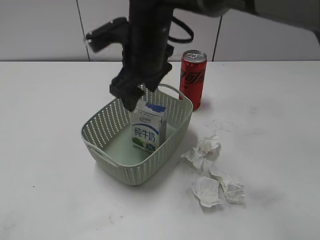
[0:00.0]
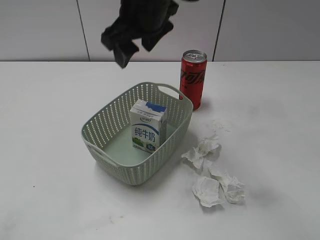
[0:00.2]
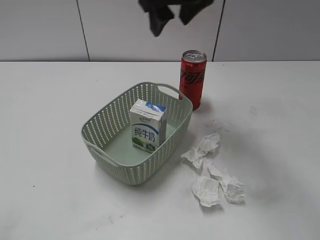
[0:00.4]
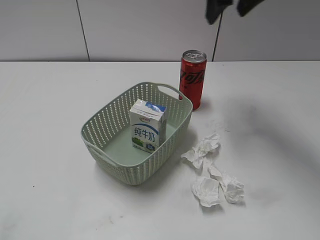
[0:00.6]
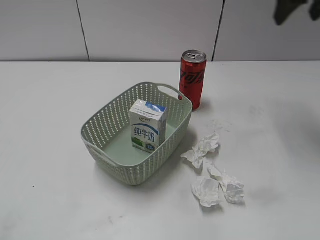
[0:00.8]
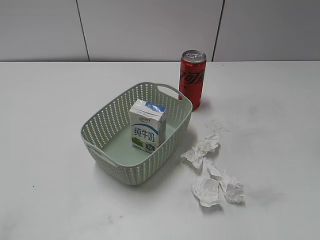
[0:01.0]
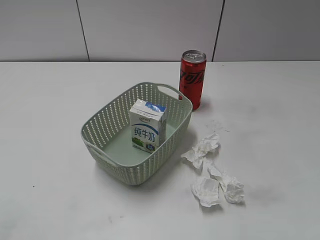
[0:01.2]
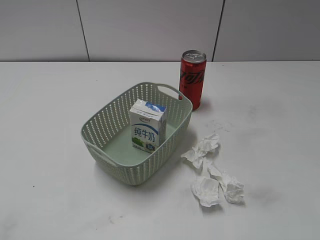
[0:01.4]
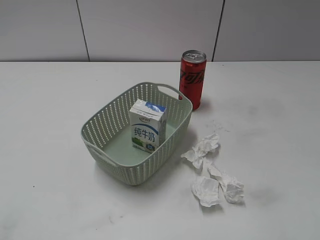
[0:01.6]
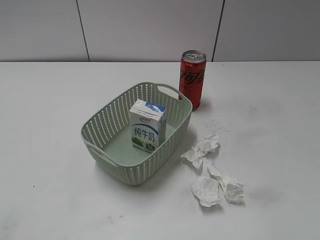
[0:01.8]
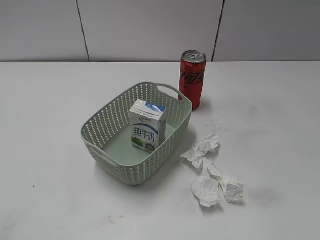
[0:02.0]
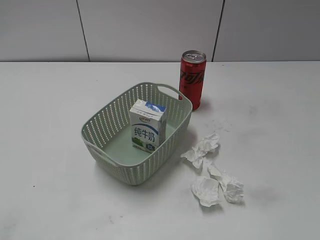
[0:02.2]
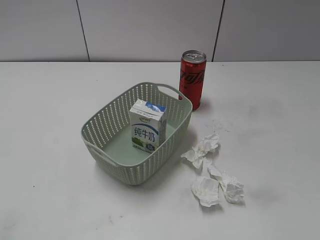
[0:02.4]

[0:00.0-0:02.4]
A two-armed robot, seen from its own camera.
0:00.0 to 0:01.2: The right gripper heads to the right, covering roughly 35 cm.

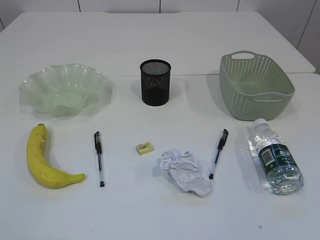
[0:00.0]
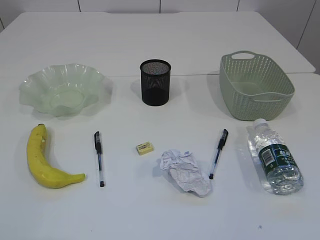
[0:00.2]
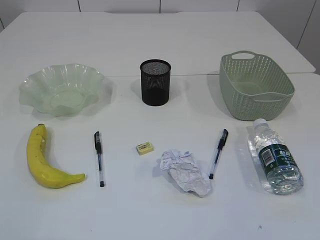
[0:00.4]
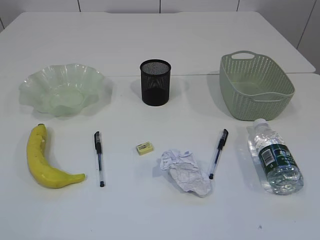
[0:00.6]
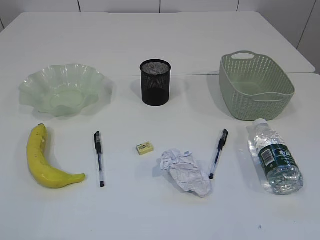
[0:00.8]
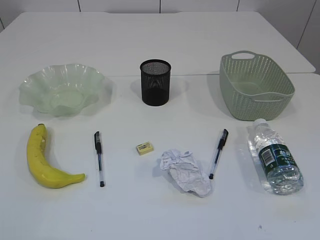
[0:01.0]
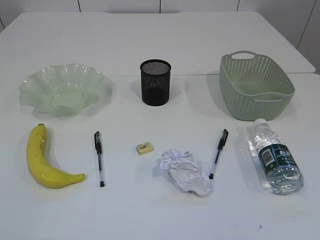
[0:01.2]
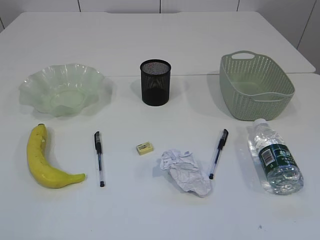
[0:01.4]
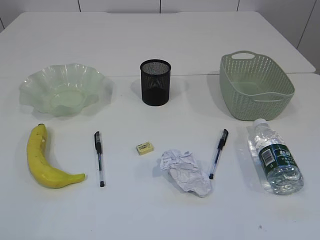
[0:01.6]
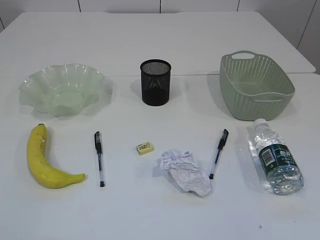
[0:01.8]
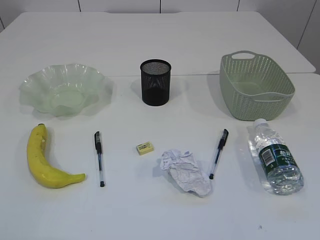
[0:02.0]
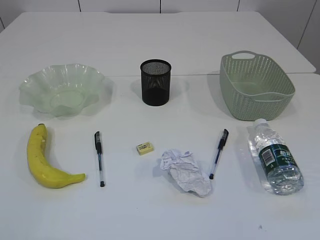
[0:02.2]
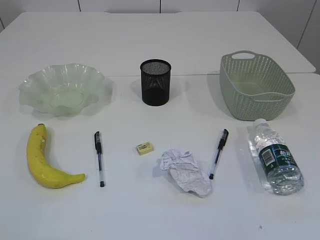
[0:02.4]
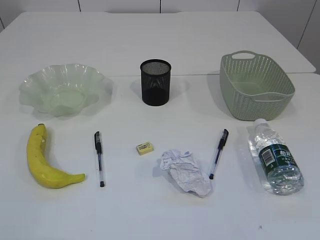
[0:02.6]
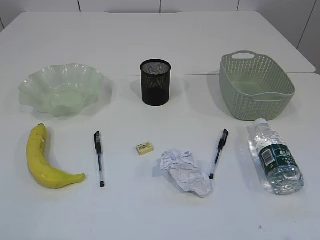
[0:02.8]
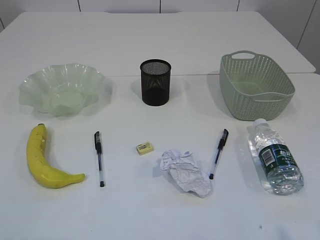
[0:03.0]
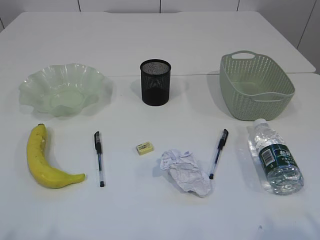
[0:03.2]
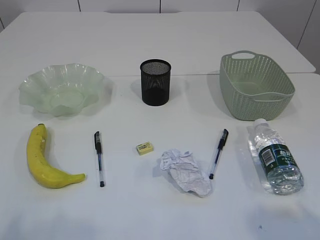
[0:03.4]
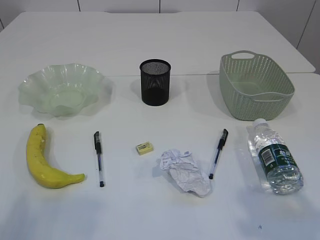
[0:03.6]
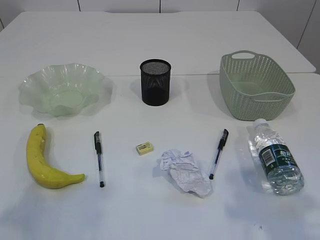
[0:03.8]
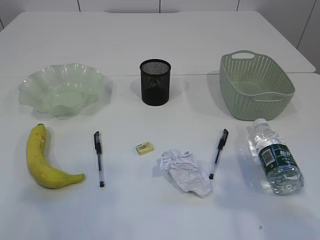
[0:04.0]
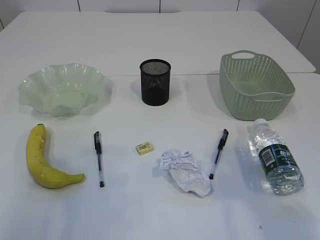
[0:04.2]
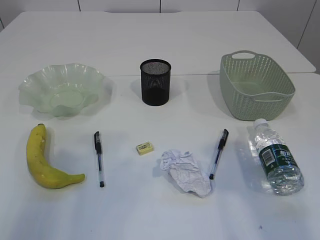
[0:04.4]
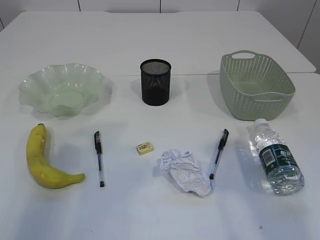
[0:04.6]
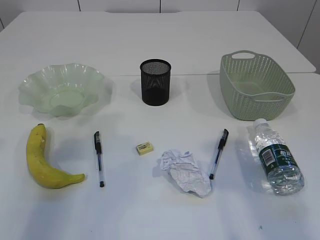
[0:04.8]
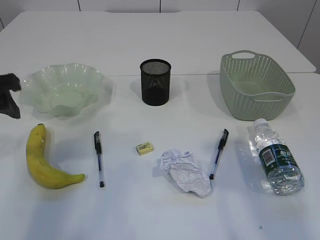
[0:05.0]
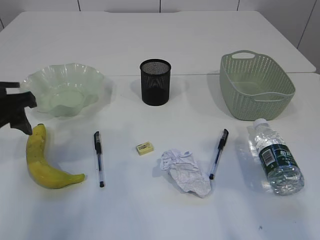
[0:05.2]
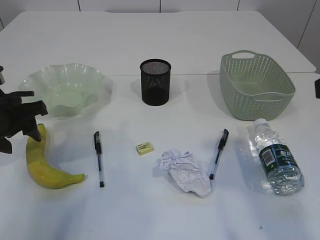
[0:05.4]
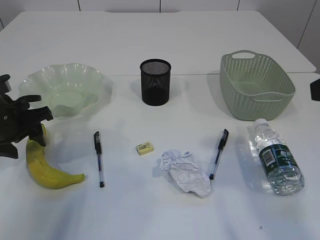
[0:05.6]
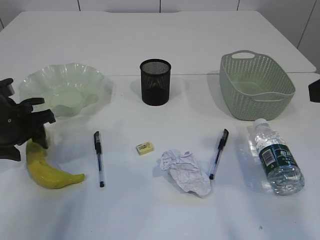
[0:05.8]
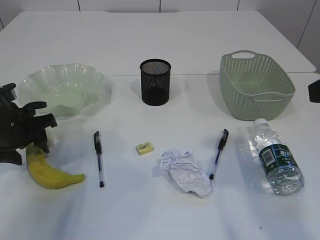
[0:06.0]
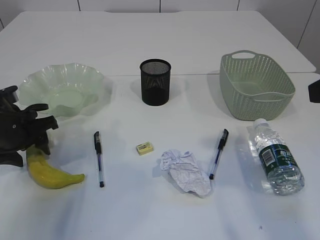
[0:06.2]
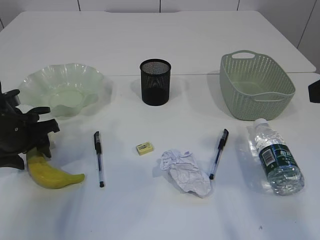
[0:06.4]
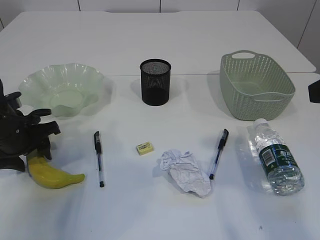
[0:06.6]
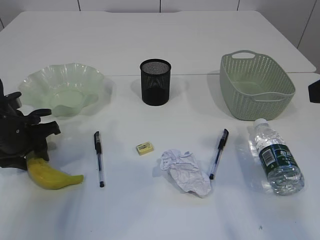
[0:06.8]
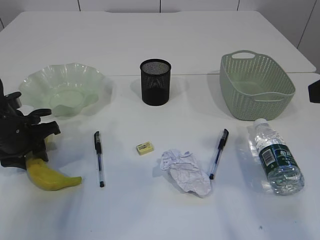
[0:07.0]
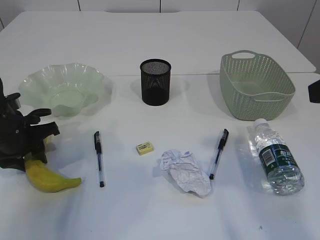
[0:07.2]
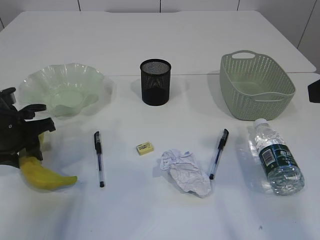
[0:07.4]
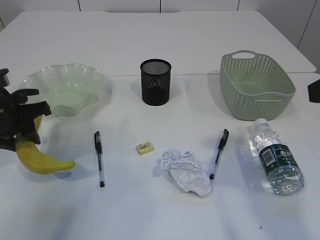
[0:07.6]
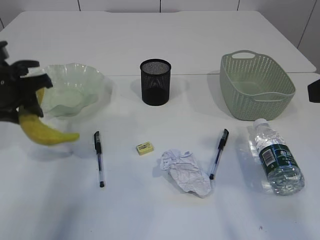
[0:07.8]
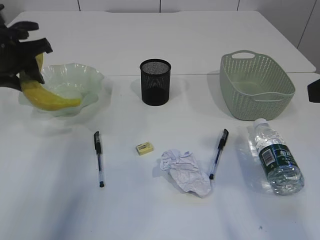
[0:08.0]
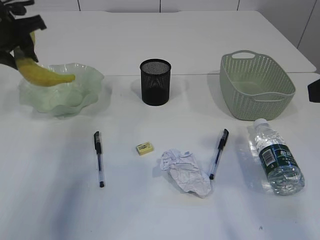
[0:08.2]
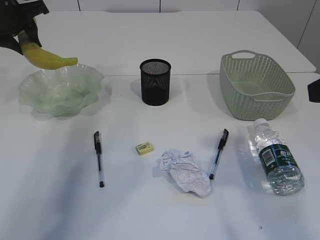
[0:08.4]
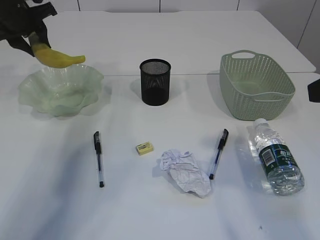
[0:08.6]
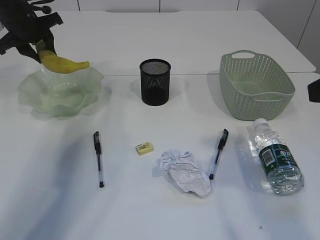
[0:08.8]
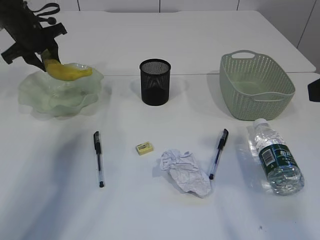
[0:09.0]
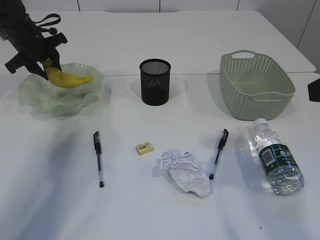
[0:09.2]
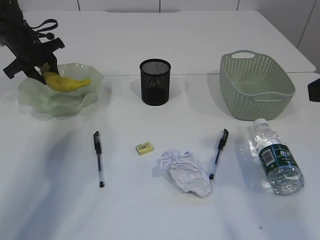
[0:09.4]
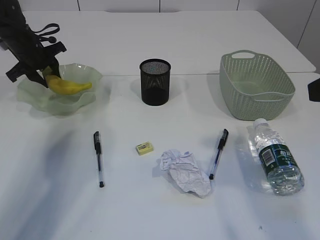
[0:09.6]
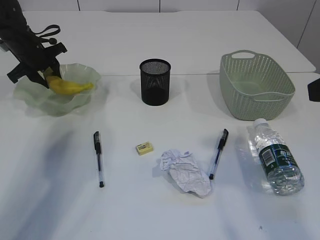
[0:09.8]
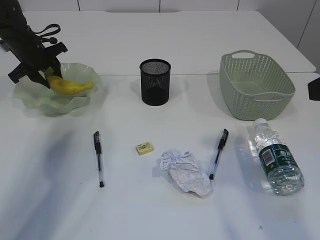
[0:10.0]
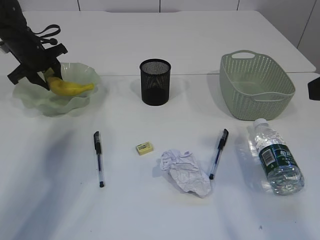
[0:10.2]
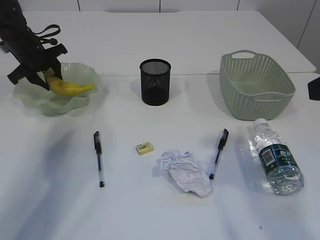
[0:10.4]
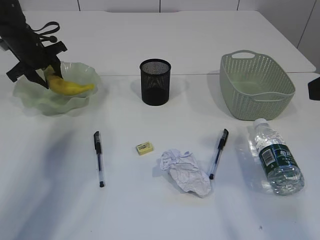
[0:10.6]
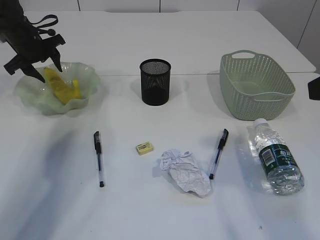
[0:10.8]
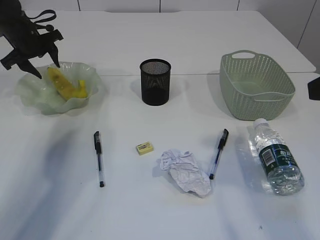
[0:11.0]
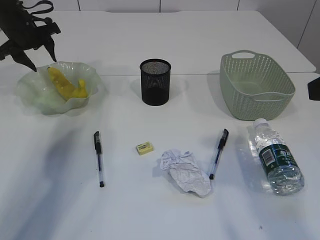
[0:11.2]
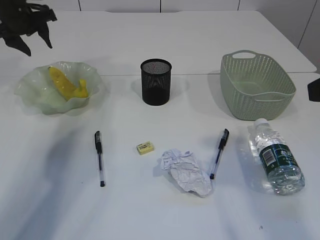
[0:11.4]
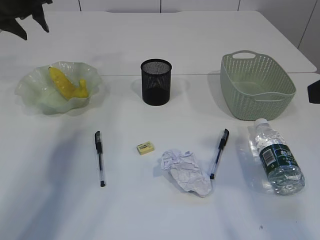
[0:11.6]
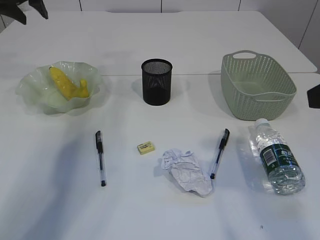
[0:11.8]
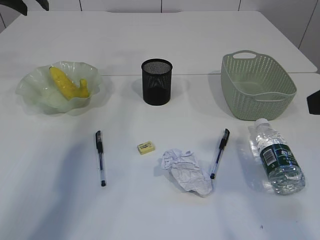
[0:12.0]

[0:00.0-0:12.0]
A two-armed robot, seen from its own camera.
Step, 0:07.8 to 0:11.4: Place the banana in the plate.
0:03.0 to 0:04.4: The grippers both shift forward by some 15 cm. The left gripper opens.
0:04.4 to 0:06.0: The left gripper is displaced downward and forward by approximately 25 cm.
0:06.0 to 0:07.6: The left gripper closes its fingers.
0:07.6 to 0:09.0: The left gripper goes some 20 cm forward.
0:09.0 to 0:10.4: The left gripper shifts some 5 cm downward.
0:10.4 to 0:12.0: The left gripper travels upward by some 20 cm.

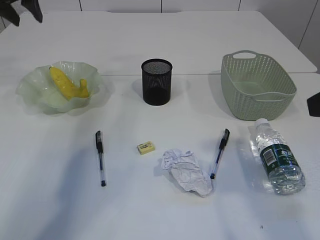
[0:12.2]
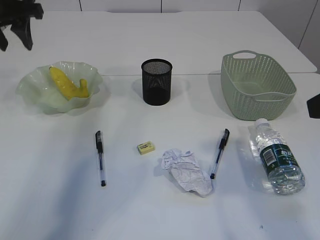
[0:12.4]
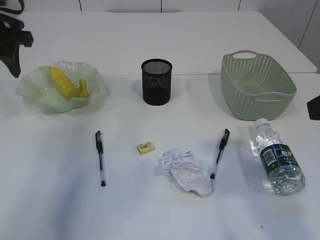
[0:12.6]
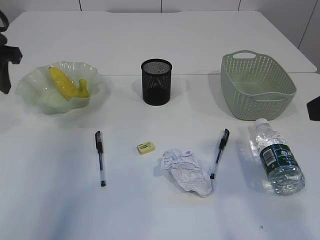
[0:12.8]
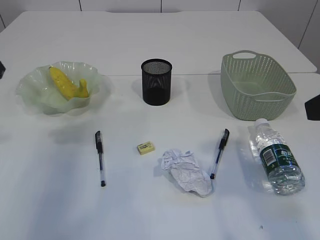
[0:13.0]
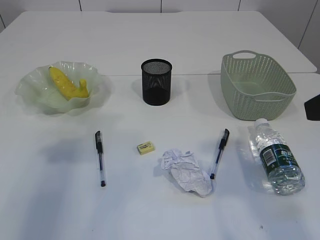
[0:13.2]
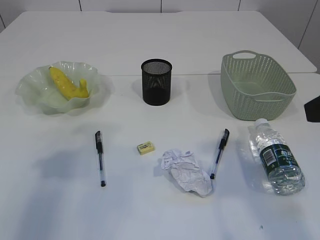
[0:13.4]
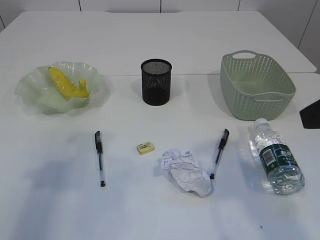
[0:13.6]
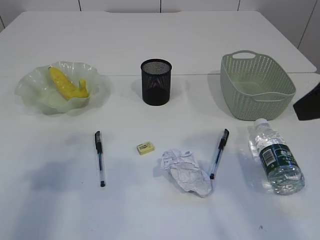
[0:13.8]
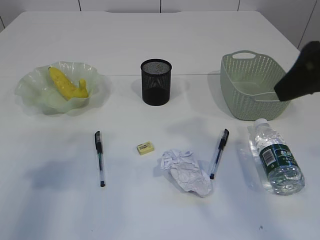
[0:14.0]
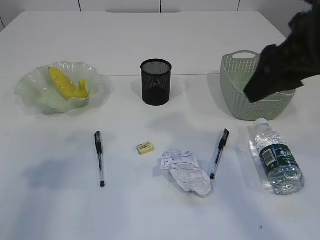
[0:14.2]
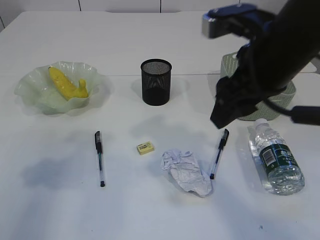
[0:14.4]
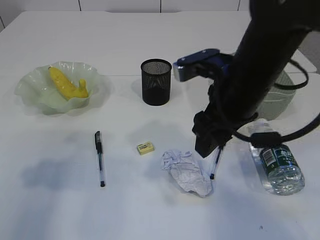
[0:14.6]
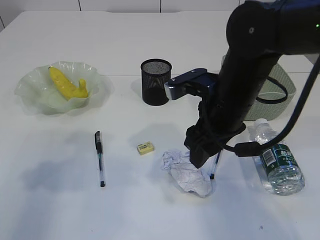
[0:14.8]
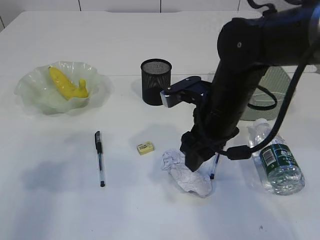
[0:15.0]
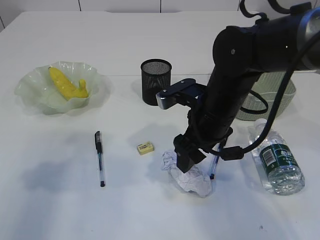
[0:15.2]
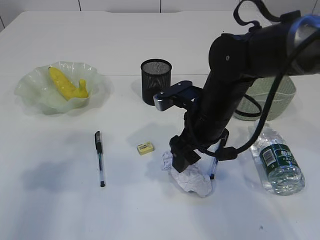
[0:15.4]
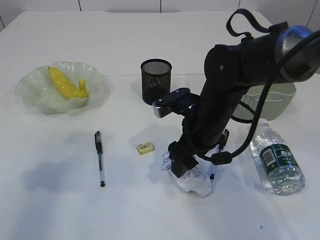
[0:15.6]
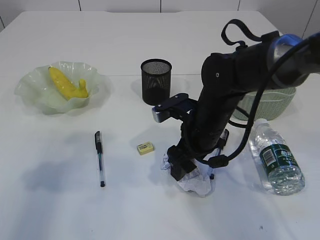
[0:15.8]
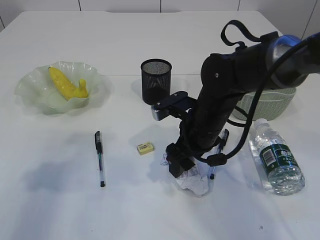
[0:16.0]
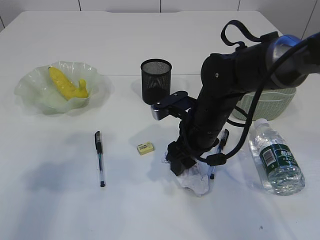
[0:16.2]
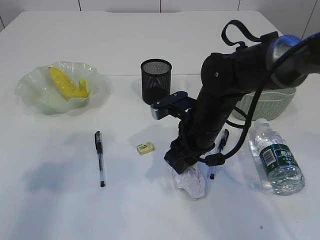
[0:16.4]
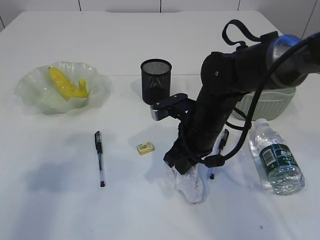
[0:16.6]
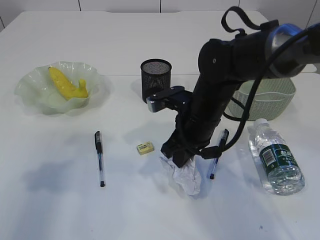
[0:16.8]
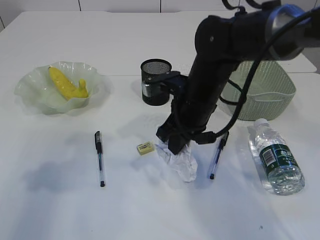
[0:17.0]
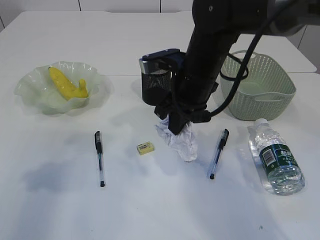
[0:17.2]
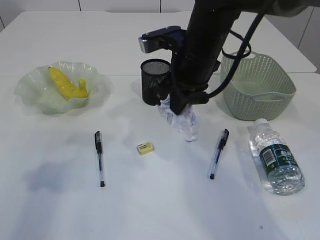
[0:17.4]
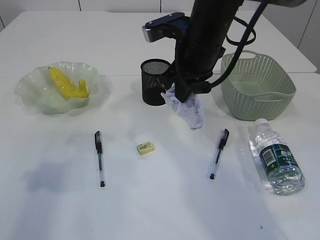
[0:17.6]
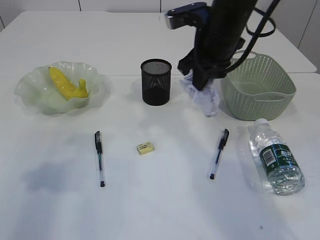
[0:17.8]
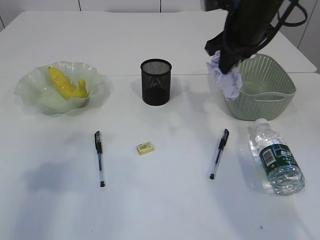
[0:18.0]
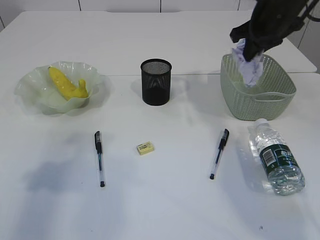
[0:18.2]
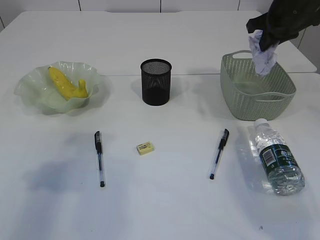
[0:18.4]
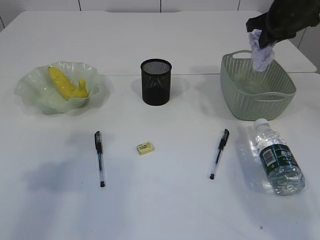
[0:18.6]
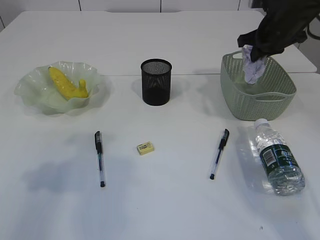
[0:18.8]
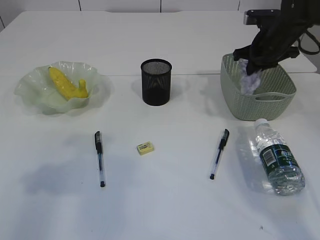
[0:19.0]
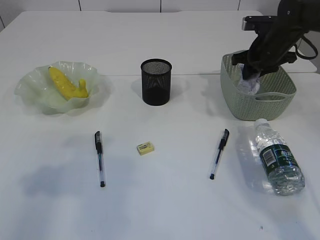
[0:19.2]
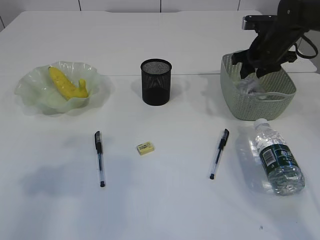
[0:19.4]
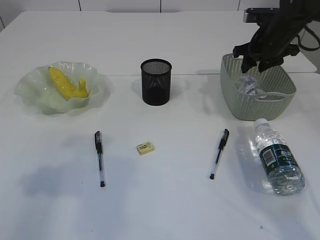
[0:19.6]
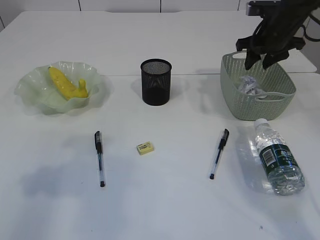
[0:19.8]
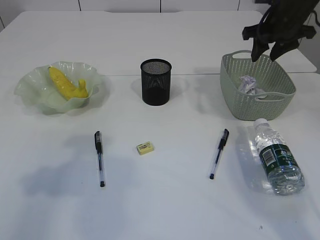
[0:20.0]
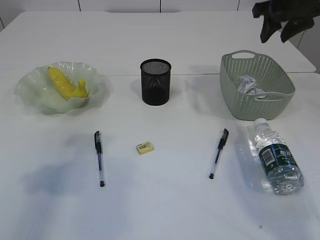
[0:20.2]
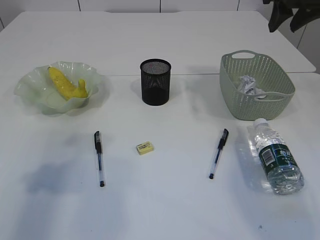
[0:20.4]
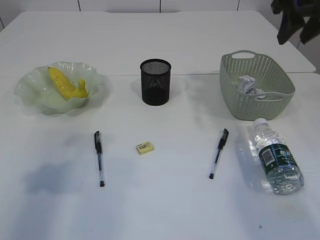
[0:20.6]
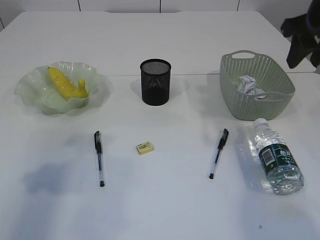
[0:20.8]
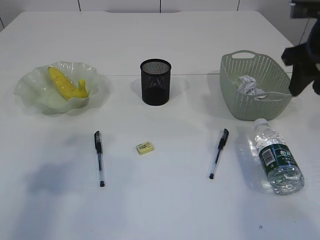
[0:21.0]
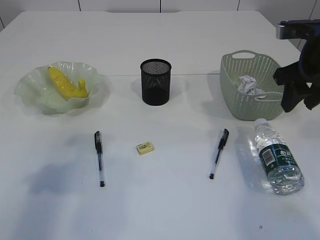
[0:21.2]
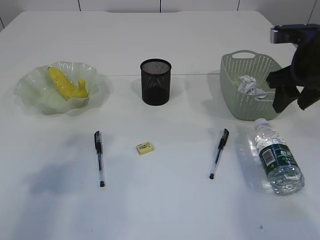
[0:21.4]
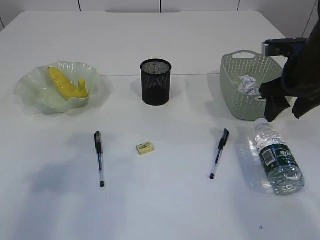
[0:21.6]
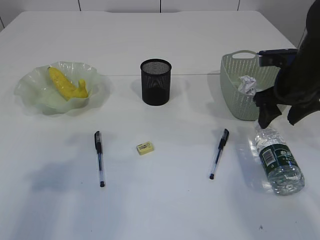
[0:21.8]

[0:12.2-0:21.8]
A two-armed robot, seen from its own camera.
Step, 0:12.2 to 0:17.0: Pick up the waste paper.
Step, 0:17.2 to 0:20.2: Place the waste paper in the basket.
0:12.2 to 0:13.8: The left gripper shifts about 30 cm backward.
0:13.8 to 0:15.4: The right gripper travels downward, to the left and forward by about 25 cm. The left gripper opens.
0:15.4 to 0:17.0: The right gripper closes.
0:17.0 to 0:18.6: The right gripper heads to the right, forward and upward, covering approximately 25 cm.
0:18.6 to 0:20.2: The right gripper moves some 10 cm downward and comes back, and opens its fingers.
0:20.2 to 0:21.8: The right gripper heads downward and backward, covering roughly 15 cm.
